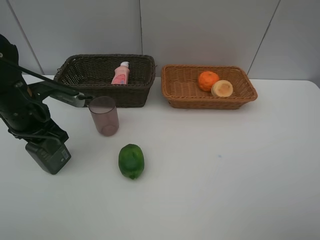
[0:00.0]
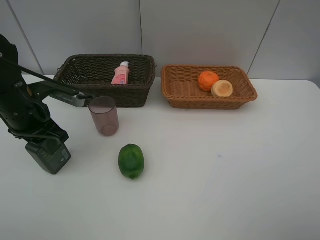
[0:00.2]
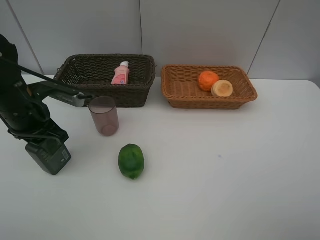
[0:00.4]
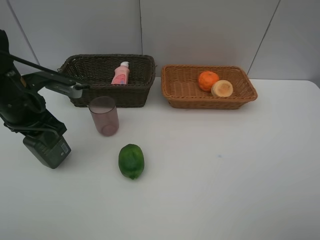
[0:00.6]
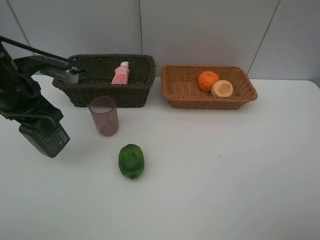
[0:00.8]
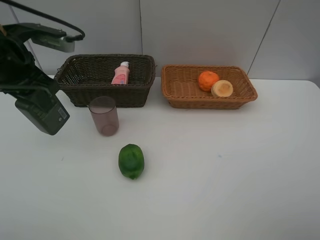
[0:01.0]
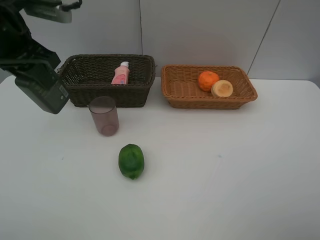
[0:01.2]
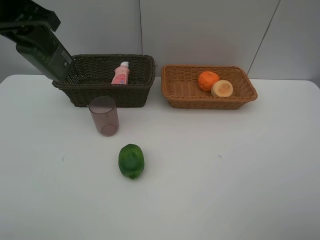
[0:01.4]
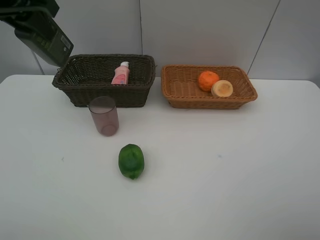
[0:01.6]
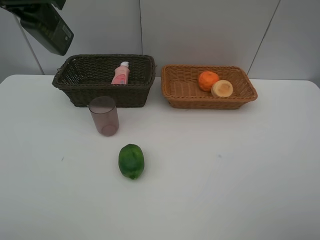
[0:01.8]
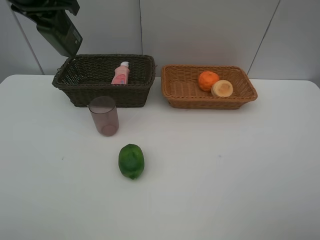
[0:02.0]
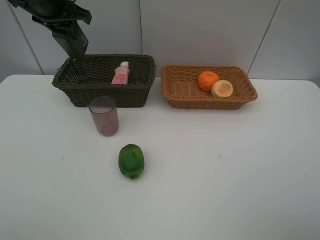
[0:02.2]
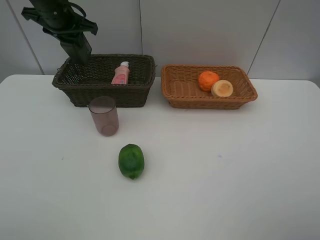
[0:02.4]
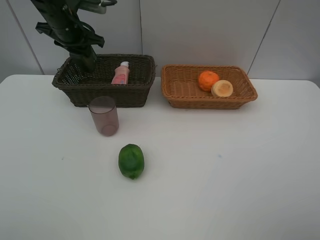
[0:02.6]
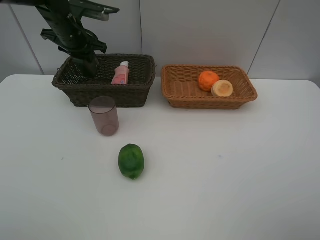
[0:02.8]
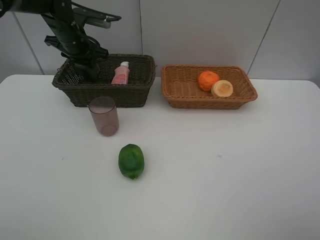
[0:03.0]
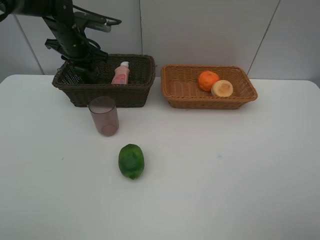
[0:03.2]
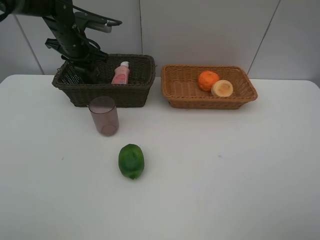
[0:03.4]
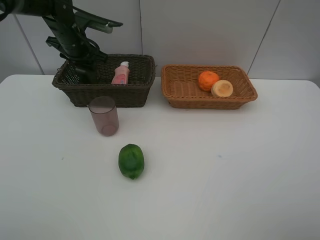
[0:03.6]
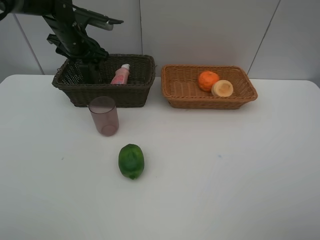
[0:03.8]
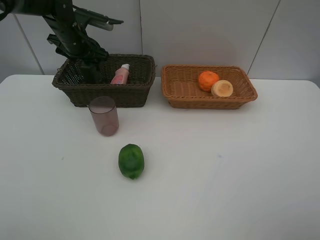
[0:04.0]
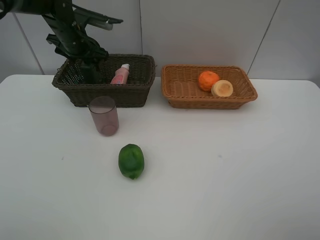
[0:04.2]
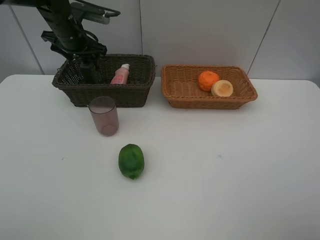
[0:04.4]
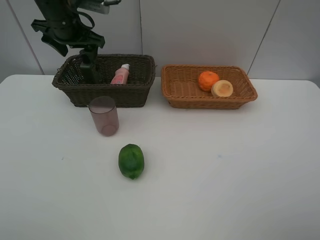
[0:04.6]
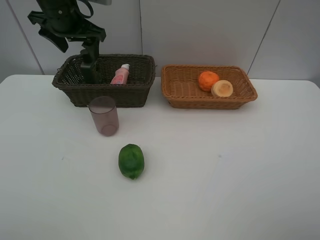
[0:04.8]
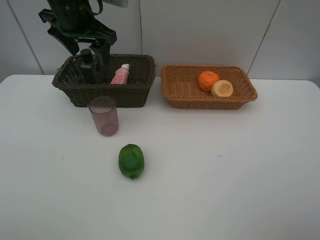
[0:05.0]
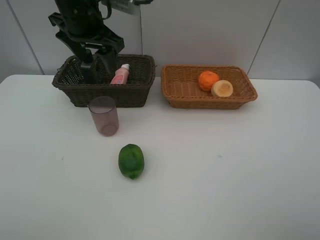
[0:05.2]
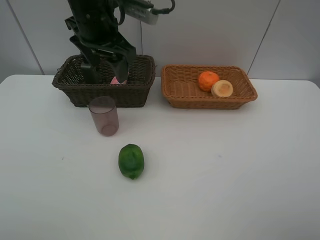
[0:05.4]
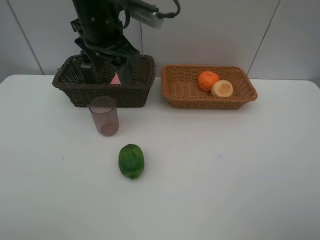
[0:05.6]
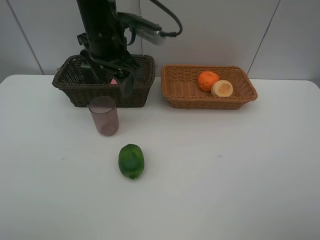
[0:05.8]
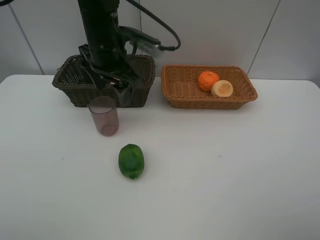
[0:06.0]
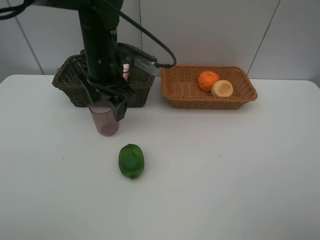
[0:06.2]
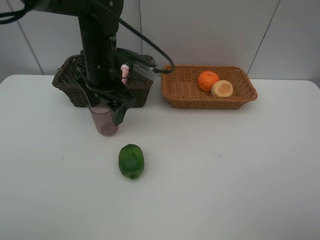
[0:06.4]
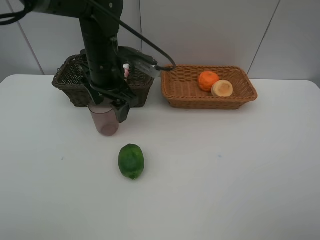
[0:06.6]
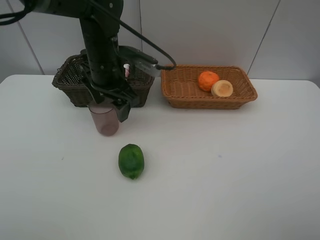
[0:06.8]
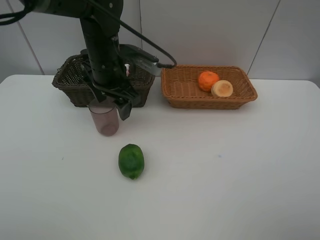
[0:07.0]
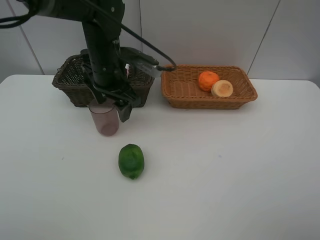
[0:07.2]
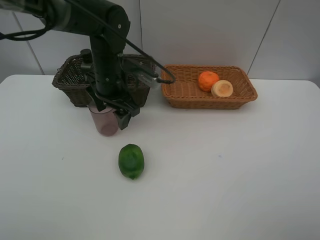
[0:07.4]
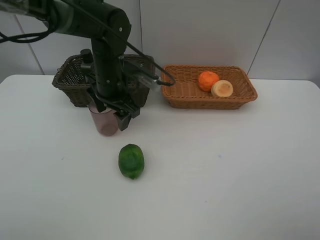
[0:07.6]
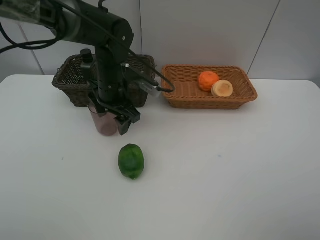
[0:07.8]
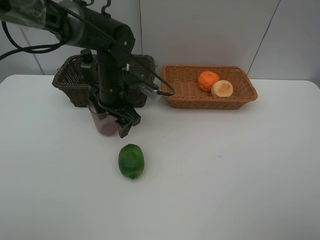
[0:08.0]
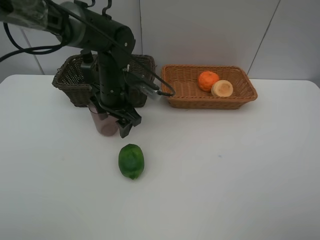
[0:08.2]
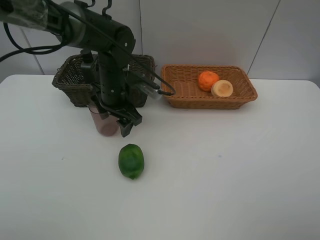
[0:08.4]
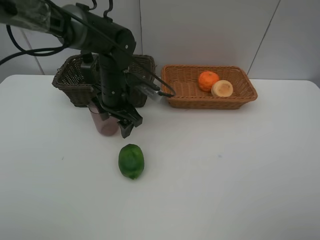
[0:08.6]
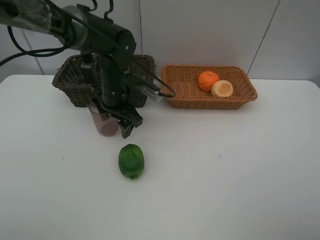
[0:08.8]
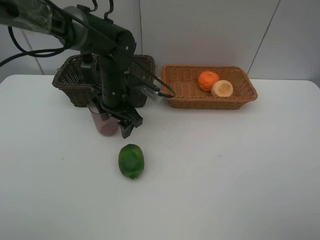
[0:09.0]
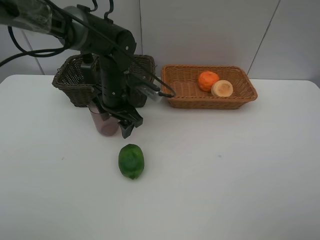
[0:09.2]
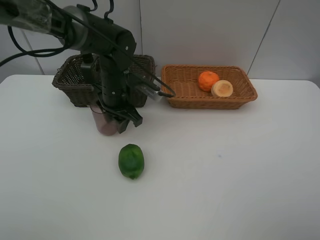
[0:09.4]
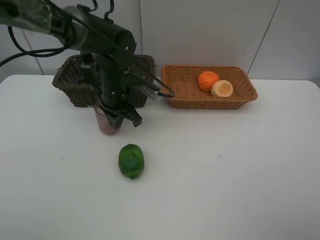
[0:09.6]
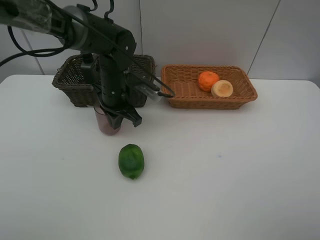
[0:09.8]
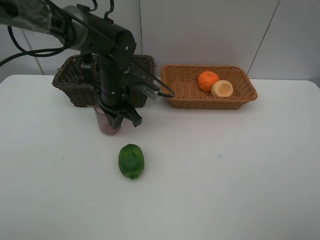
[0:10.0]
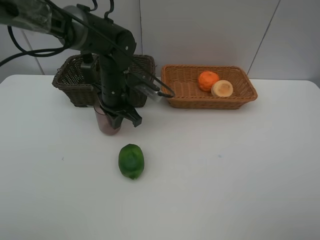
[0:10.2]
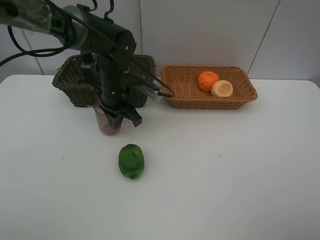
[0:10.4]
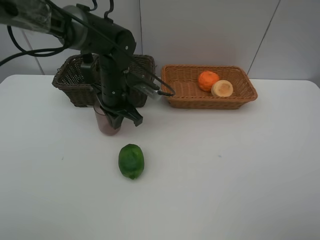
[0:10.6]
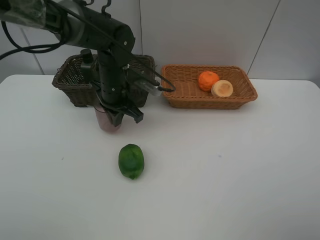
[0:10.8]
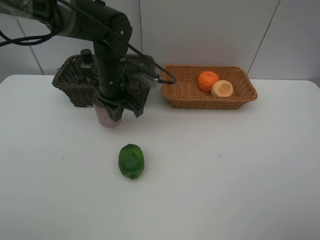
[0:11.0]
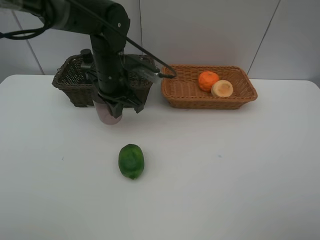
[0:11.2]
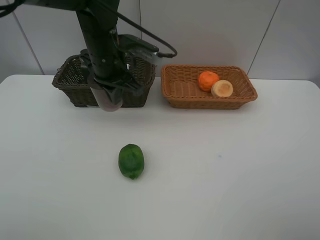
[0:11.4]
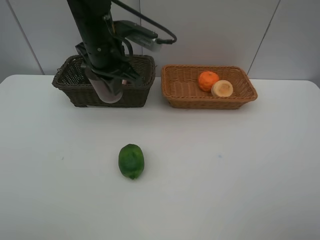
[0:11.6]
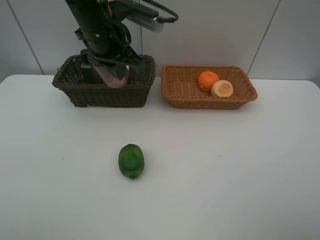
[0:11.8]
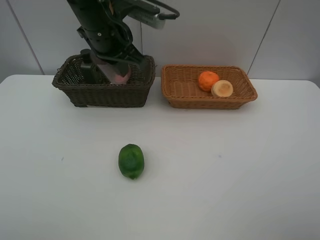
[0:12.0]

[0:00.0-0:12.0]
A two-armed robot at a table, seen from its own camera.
Task of the whole recording: place multiple objects separately in different baskets.
0:00.0 to 0:01.6: The left gripper shifts approximately 20 cm upward.
0:01.6 to 0:03.0: The left gripper is displaced downward and forward by about 20 cm.
0:03.0 to 0:04.4: The left gripper opens.
0:04.4 to 0:06.0: The left gripper shifts about 15 cm to the right and backward.
0:06.0 to 0:07.6: The left gripper travels downward by some 5 cm.
0:07.6 to 0:09.0: The grippers move only a little.
0:09.0 to 0:10.4: The left gripper closes its fingers.
0:10.4 to 0:12.0: The left gripper goes about 15 cm upward.

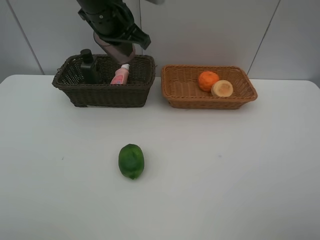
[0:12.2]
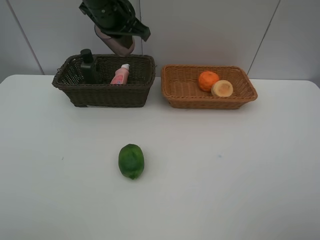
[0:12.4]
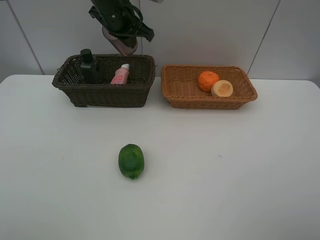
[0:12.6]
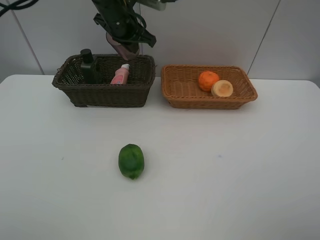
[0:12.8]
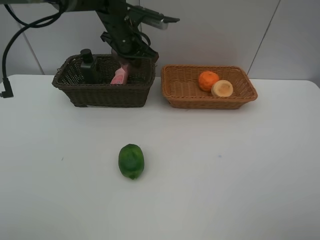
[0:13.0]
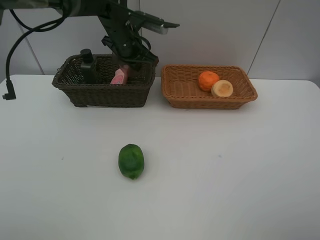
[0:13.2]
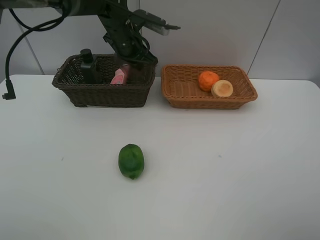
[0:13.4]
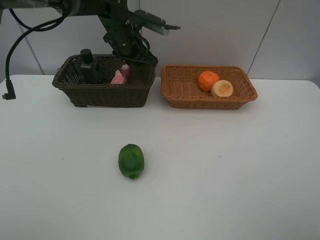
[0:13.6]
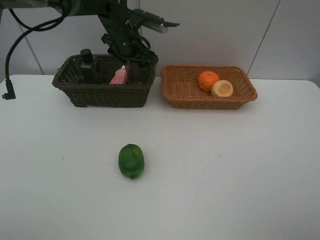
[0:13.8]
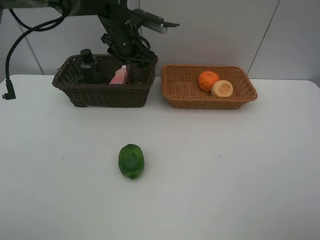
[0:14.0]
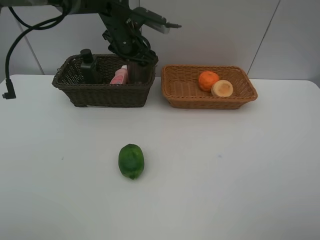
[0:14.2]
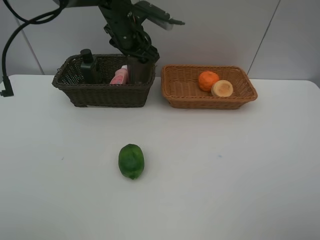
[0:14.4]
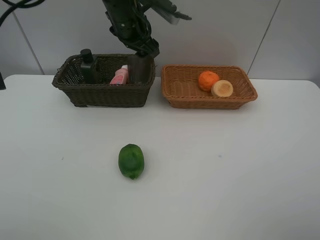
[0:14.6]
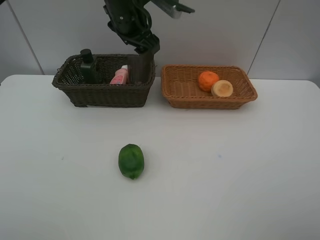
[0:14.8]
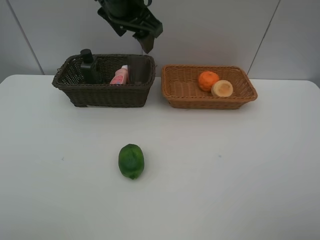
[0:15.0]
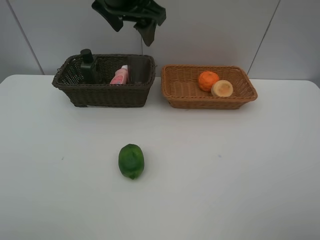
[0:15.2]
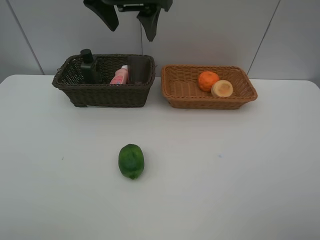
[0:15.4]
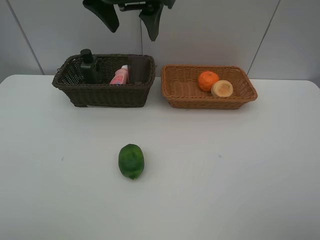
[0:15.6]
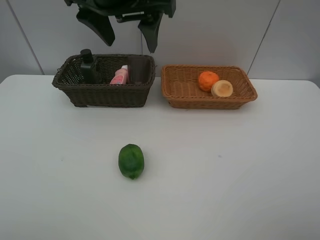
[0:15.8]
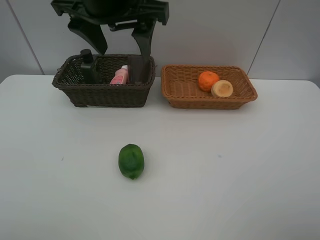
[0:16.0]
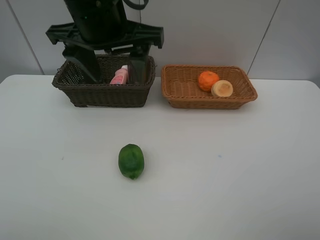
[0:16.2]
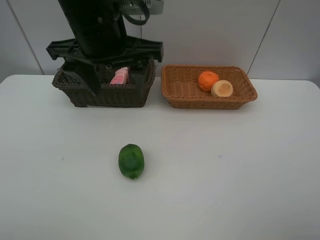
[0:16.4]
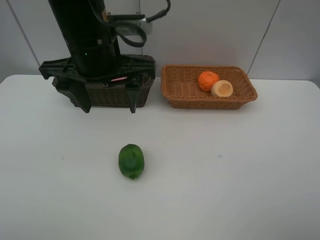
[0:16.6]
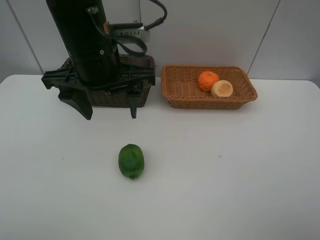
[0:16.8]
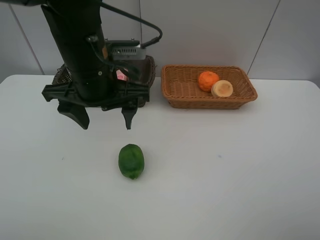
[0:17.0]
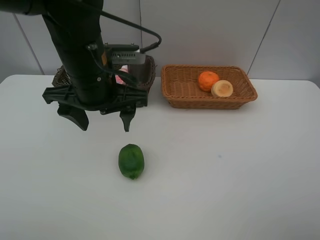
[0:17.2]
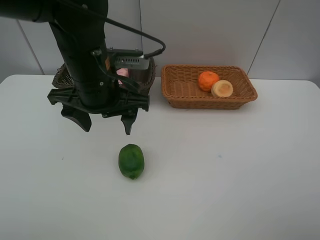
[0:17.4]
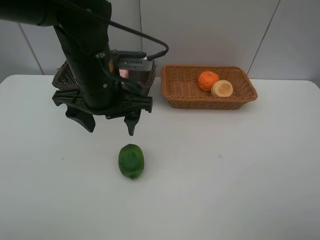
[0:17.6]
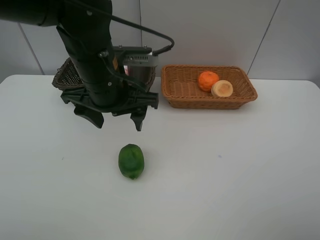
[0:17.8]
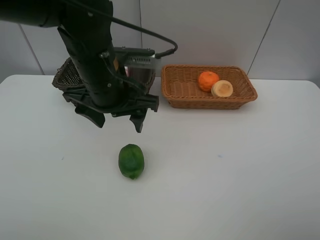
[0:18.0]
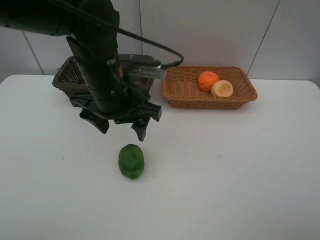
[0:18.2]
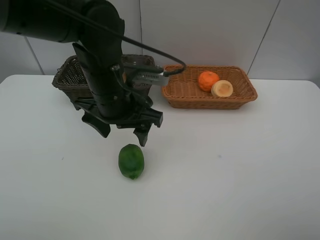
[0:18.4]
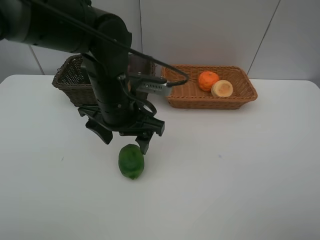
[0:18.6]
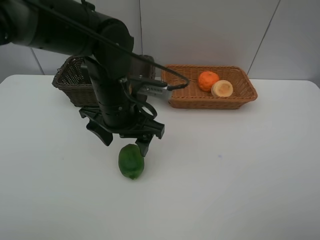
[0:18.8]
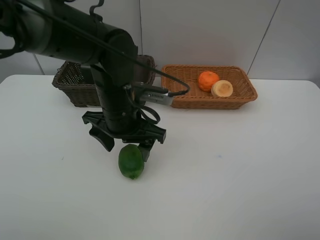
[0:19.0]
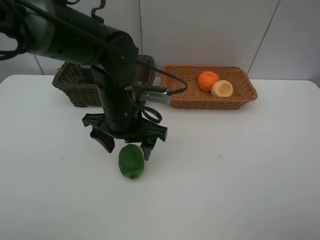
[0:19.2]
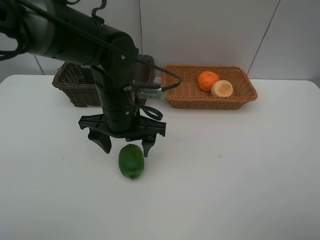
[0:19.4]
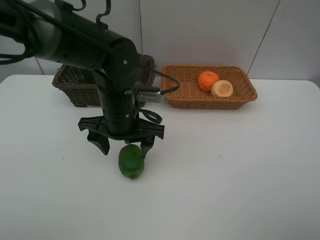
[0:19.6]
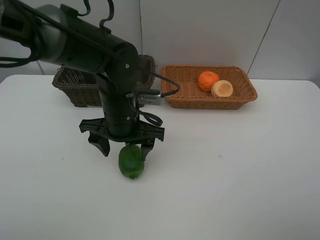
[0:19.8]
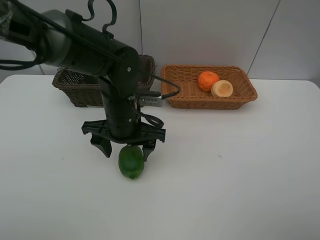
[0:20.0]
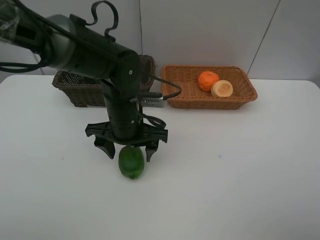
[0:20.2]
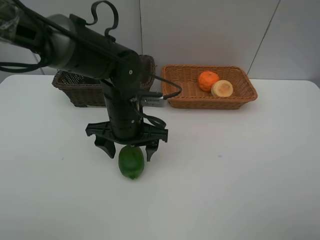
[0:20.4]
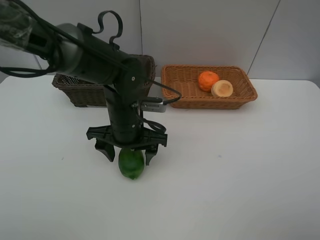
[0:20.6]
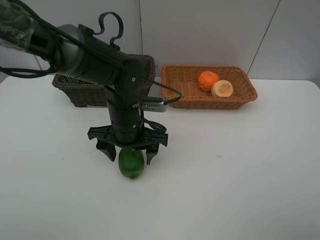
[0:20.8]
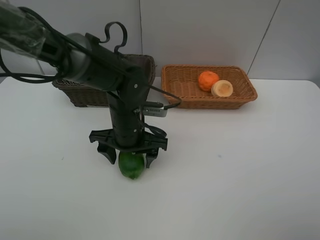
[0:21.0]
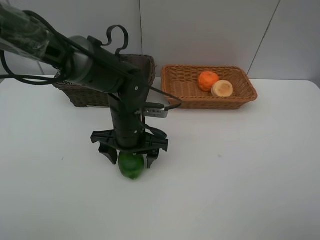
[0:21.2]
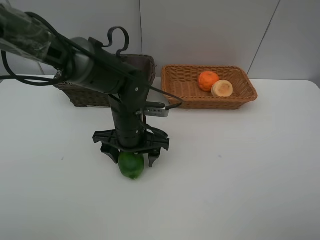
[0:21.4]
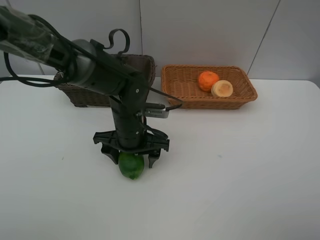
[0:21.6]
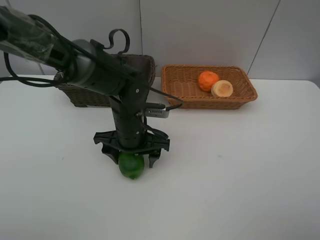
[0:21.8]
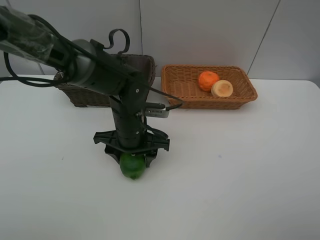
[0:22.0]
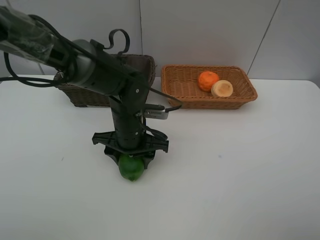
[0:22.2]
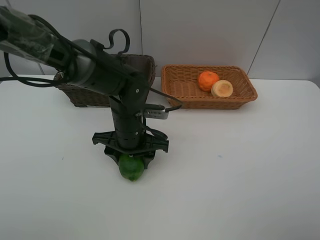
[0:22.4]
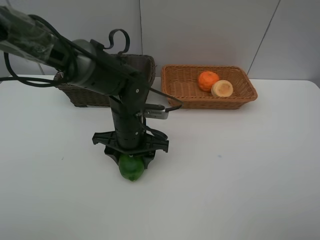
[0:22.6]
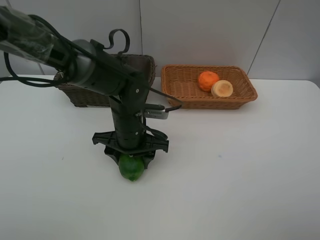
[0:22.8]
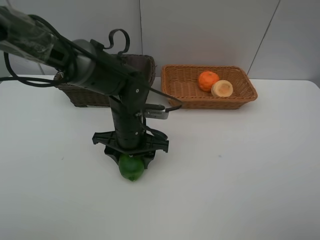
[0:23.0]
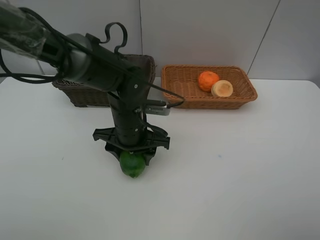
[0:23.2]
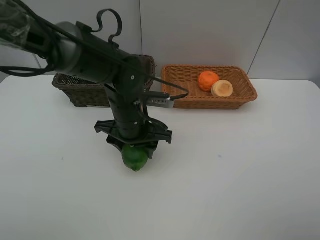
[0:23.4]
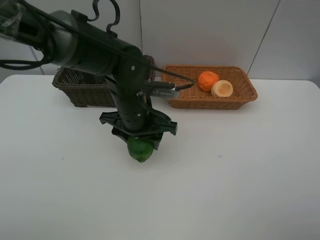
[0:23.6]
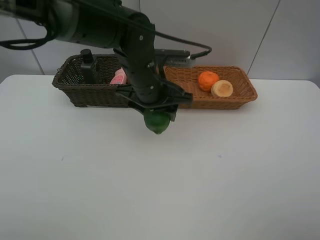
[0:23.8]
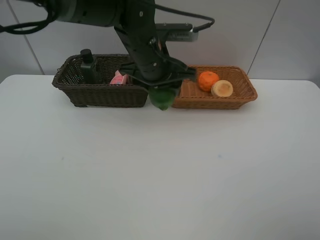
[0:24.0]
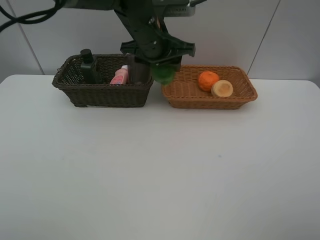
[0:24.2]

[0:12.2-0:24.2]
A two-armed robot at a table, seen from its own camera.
Task of the whole recording: place multiple objects separately in different baskets.
0:12.2 to 0:13.8: The left gripper shifts about 10 cm downward and forward, and opens its fingers.
0:13.8 to 0:15.2: The left gripper heads upward and backward, covering roughly 15 cm.
0:15.2 to 0:16.6: The left gripper travels backward and downward by approximately 10 cm.
0:16.6 to 0:18.2: The left gripper is displaced downward by about 5 cm.
0:18.2 to 0:19.8: The left gripper shifts about 5 cm downward.
0:19.8 to 0:21.2: The grippers move only a little.
0:21.2 to 0:22.6: The two grippers keep their place.
0:22.6 to 0:24.2: The left gripper goes some 20 cm upward and forward.
